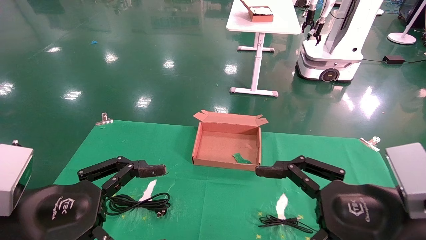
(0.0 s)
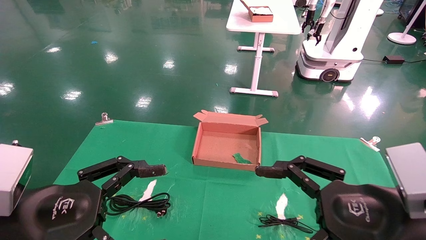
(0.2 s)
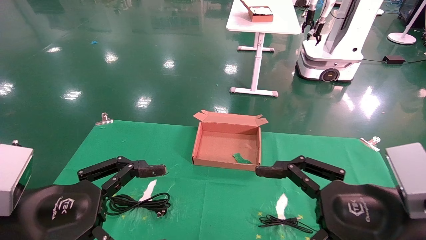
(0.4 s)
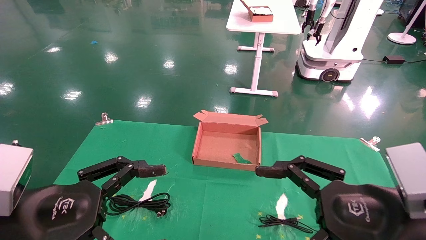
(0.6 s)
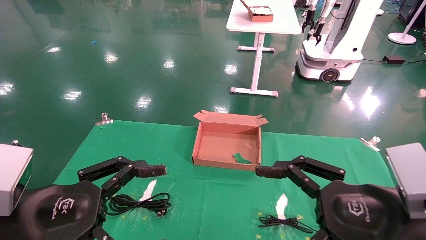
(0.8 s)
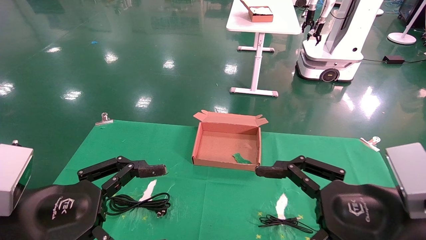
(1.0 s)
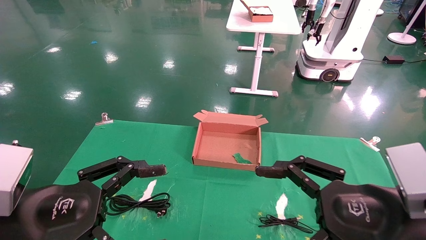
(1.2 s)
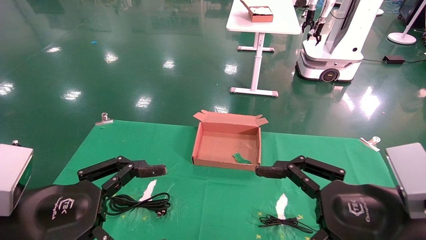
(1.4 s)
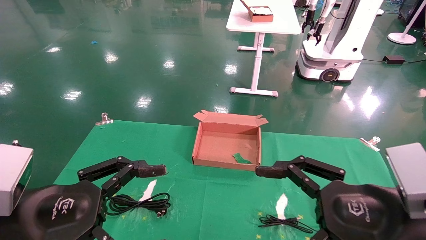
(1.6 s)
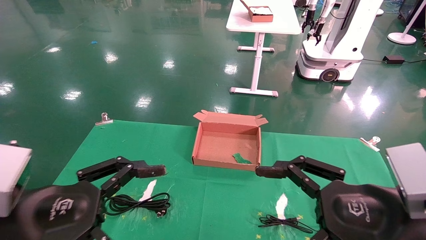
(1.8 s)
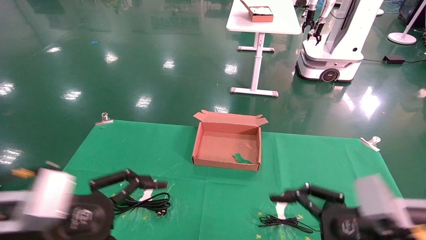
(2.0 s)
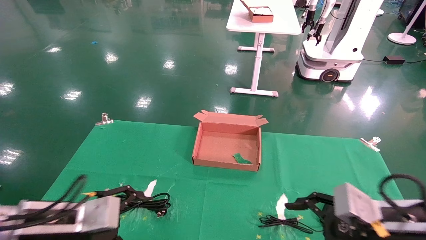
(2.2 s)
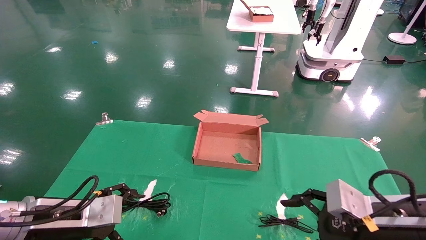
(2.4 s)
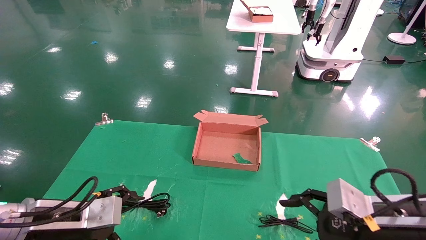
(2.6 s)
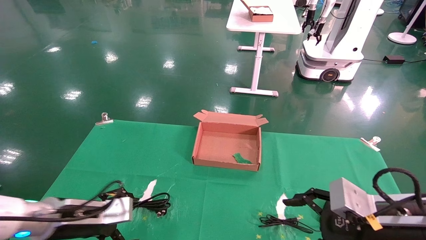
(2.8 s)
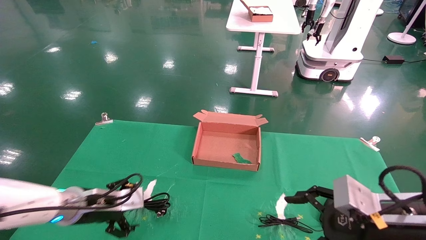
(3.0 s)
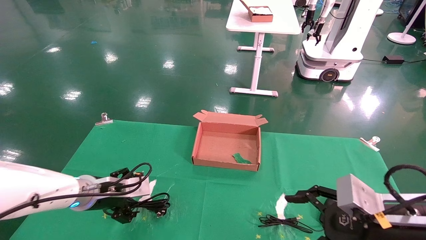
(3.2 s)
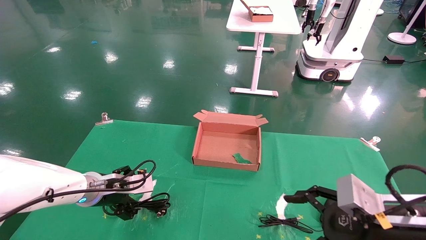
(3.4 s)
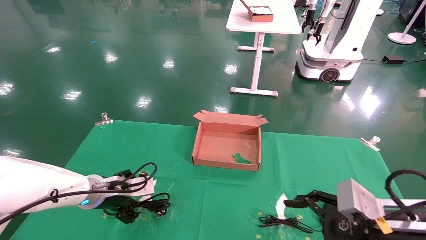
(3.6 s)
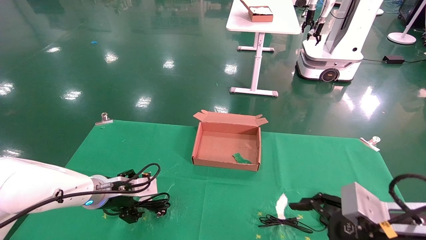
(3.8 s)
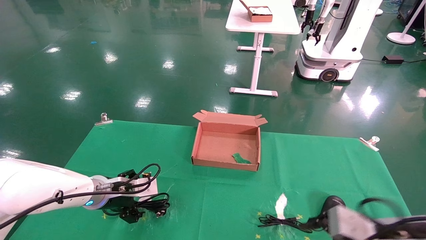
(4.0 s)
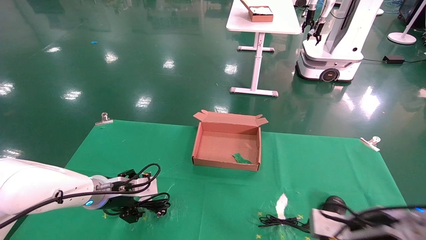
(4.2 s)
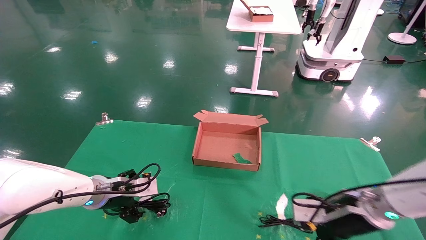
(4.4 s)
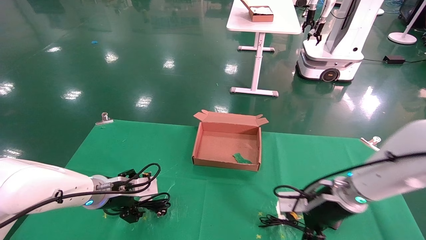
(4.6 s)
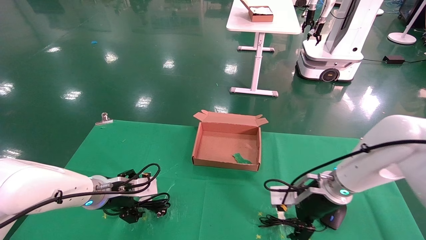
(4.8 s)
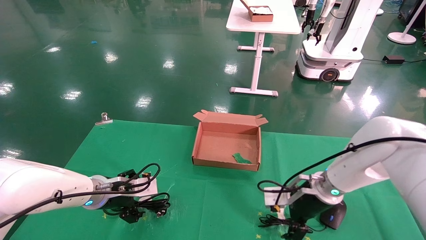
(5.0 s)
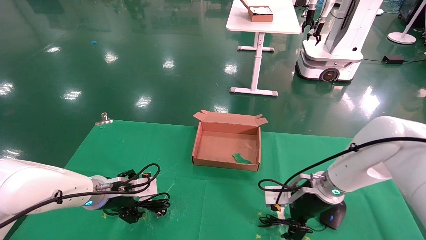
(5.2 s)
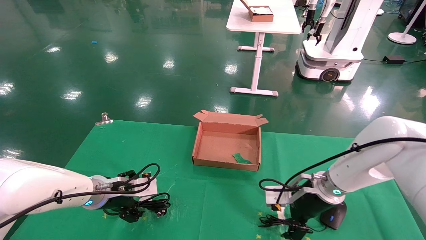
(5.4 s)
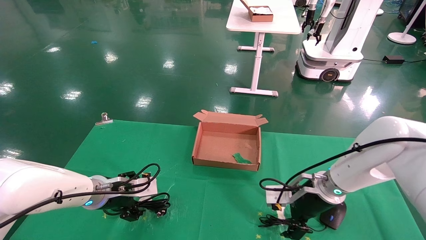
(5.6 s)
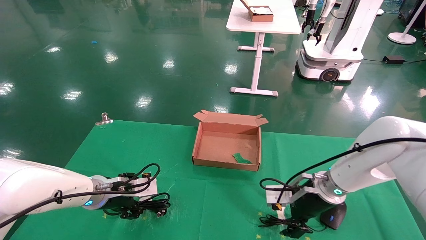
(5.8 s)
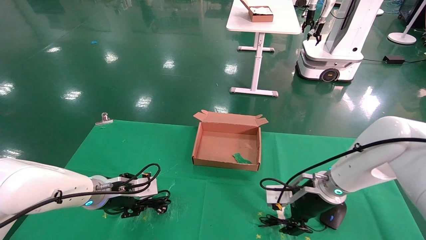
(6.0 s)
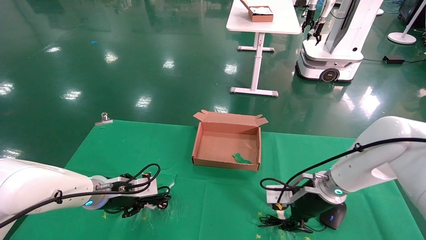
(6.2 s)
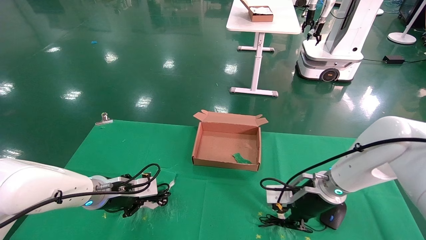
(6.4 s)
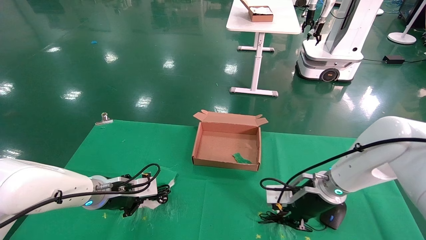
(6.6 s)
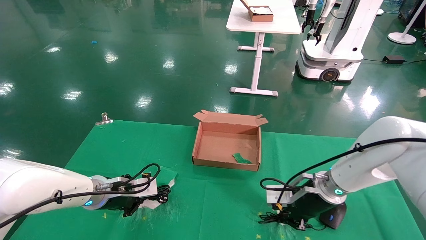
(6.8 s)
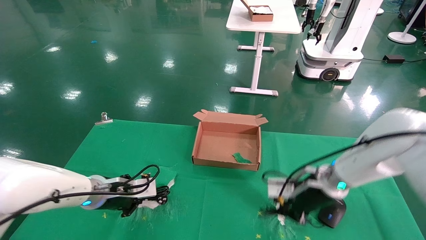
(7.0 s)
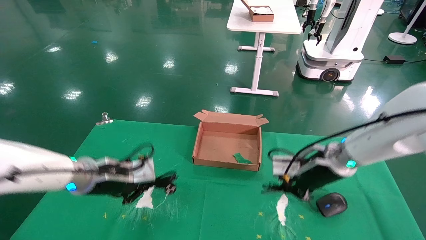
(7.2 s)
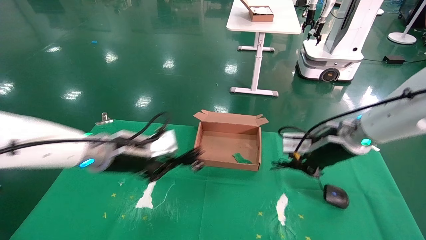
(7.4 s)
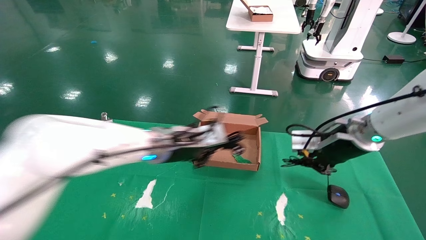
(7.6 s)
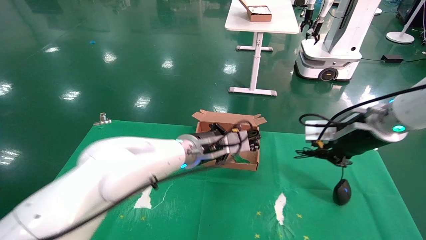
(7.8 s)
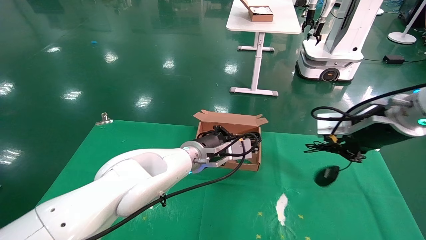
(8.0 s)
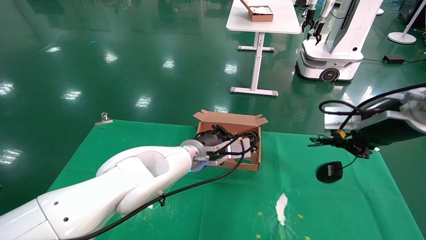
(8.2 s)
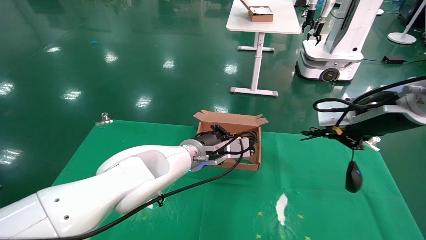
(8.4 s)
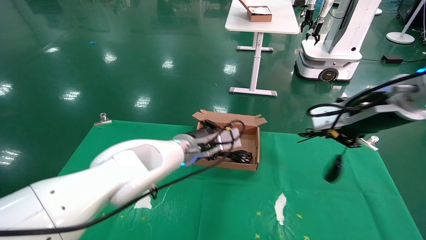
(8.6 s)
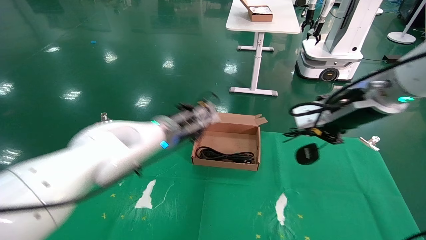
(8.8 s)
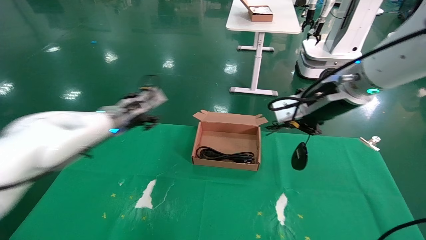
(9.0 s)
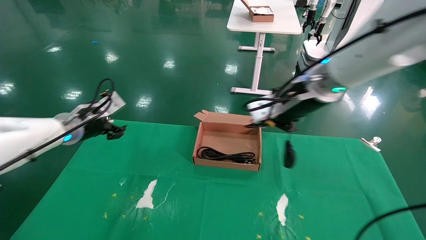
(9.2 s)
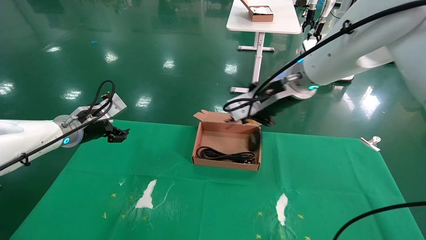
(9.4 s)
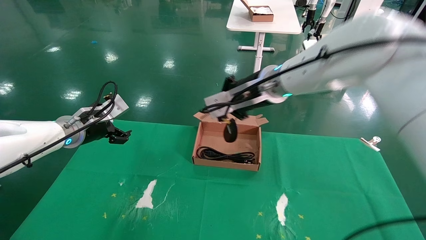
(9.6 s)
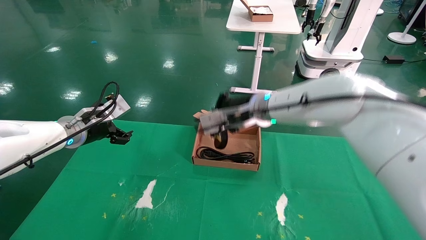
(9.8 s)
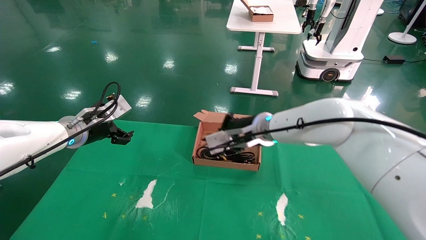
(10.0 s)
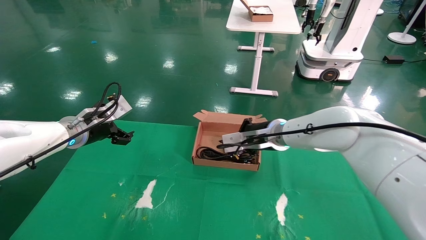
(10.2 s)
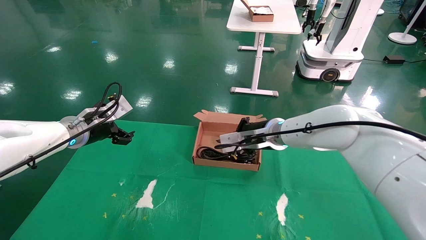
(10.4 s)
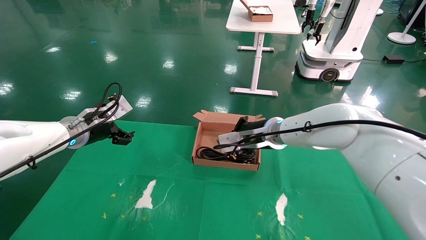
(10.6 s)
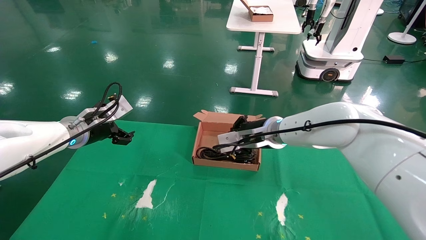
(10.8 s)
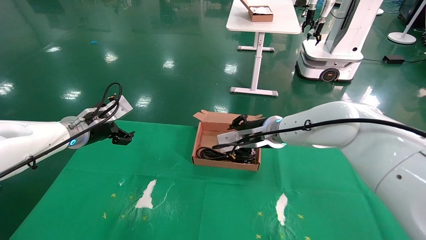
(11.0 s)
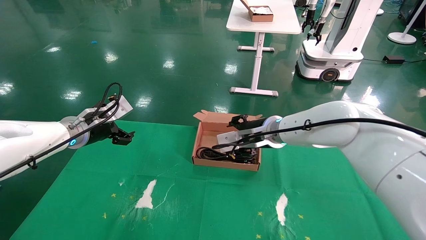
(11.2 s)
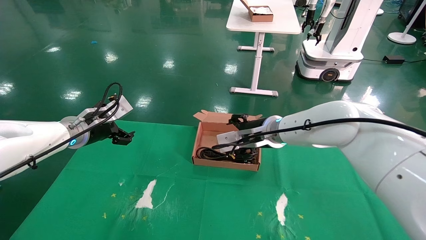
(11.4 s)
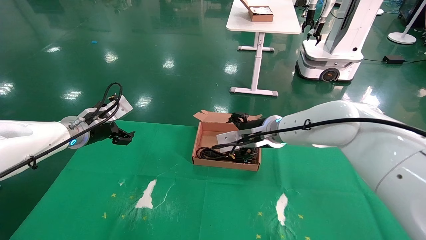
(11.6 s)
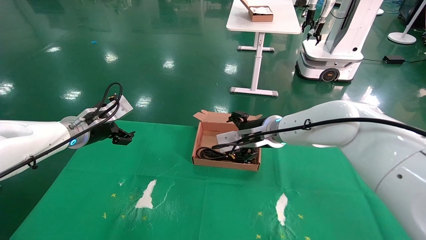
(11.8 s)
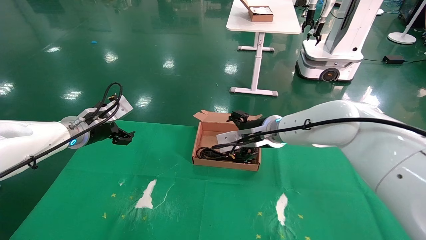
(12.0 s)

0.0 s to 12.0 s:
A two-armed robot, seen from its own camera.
Step, 3.0 to 7.0 s: Grab and lift both the mouse and power cord from the accessory packaging area at the same time.
Step, 7.2 to 11.4 s: Place the mouse and power cord into the box.
0.0 to 1.6 s: The two grippers keep their place.
1.6 to 3.0 s: The left gripper heads forward and downward, covering about 20 cm. Meanwhile the right gripper shifts by about 5 cm.
3.0 to 4.4 s: The left gripper shifts by approximately 5 cm. Meanwhile the right gripper heads forward, covering approximately 10 cm.
4.4 to 6.0 s: The left gripper closes its fingers. Meanwhile the right gripper shifts about 5 cm forward.
6.0 to 7.6 s: The right gripper travels upward by some 15 cm, and closes; the left gripper heads to the right and upward, covering approximately 20 cm, and closes.
7.6 to 9.0 s: The right gripper is displaced upward and to the left by roughly 10 cm. Meanwhile the left gripper moves to the left and forward, roughly 15 cm, and opens.
9.0 to 10.4 s: The left gripper moves to the left, about 5 cm, and opens up. Meanwhile the right gripper shifts approximately 20 cm downward, forward and to the left.
10.4 to 12.0 s: The right gripper opens.

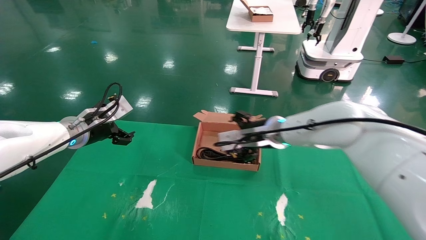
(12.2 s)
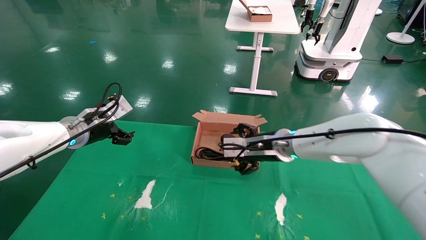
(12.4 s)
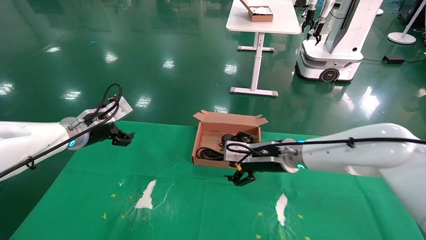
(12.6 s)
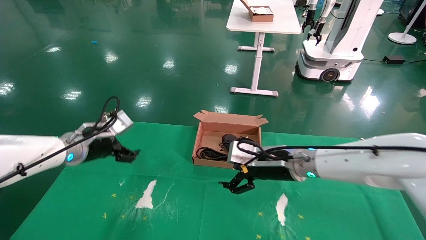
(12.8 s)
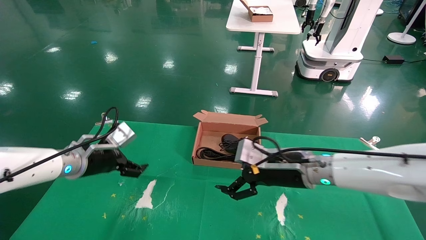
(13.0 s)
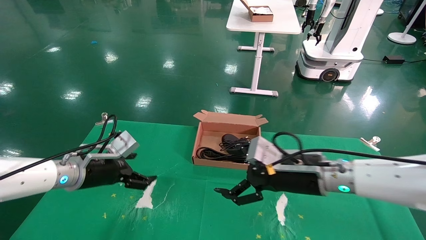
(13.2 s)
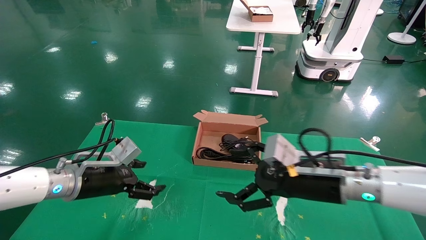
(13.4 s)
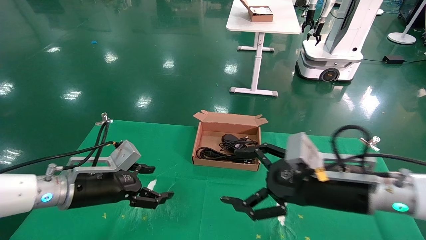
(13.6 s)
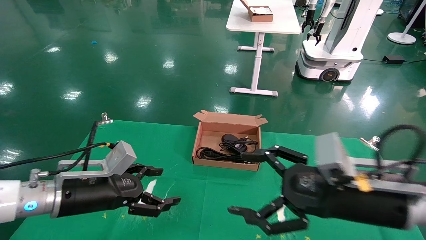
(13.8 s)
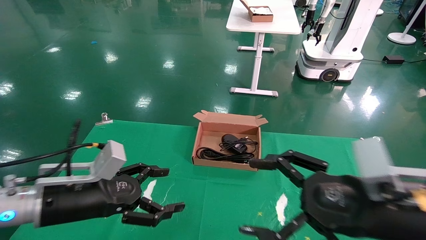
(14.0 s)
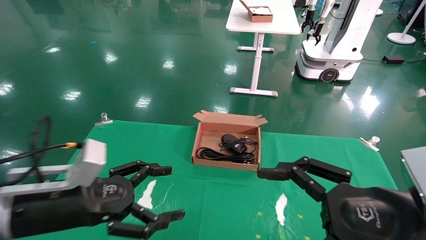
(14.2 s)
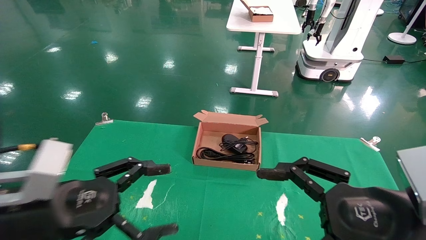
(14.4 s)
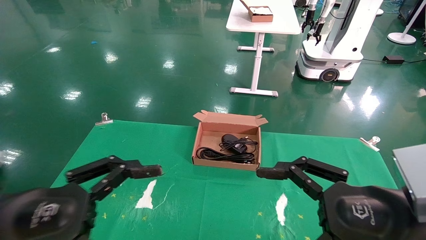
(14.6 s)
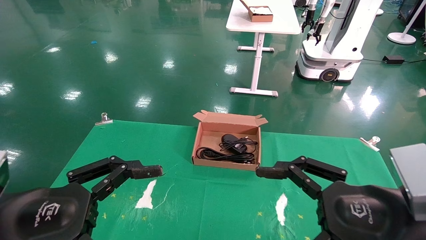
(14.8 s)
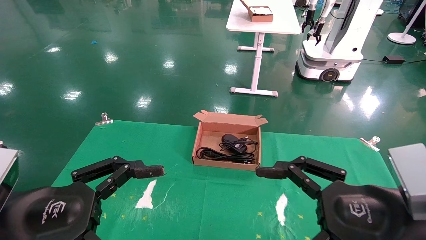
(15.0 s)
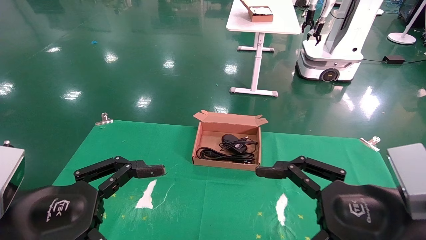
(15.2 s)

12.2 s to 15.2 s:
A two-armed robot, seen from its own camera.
12.2 to 13.8 s: The left gripper shifts some 15 cm backward and downward. Meanwhile the right gripper is displaced backward and to the right by some 25 cm.
13.8 to 15.2 s: The left gripper is displaced backward by about 15 cm; the right gripper goes some 5 cm backward.

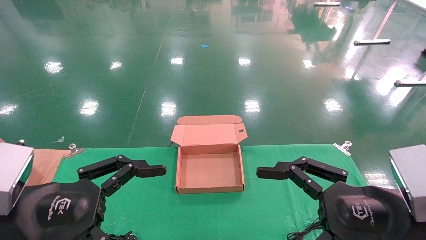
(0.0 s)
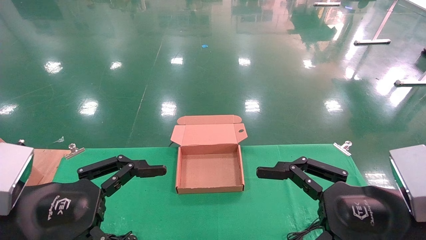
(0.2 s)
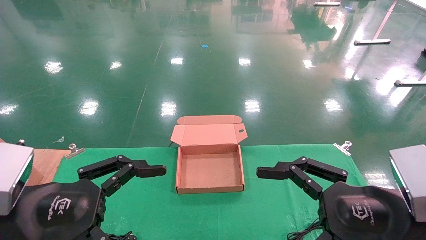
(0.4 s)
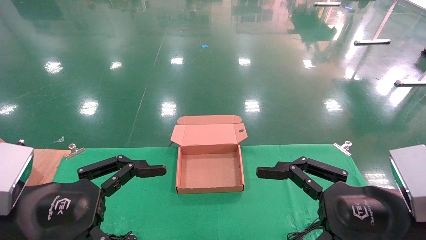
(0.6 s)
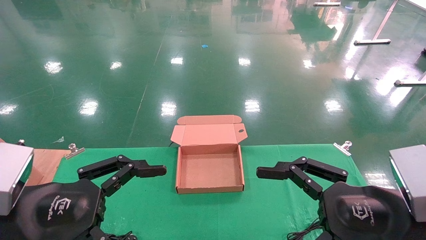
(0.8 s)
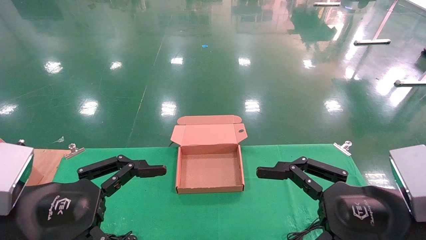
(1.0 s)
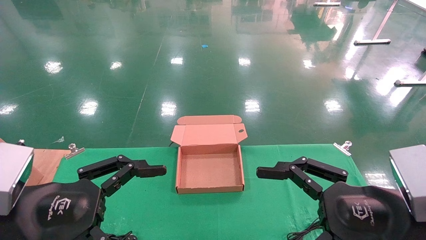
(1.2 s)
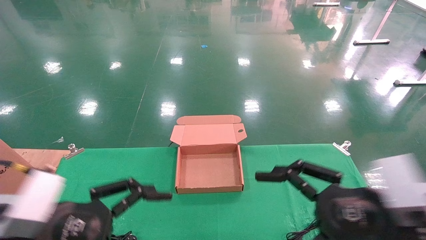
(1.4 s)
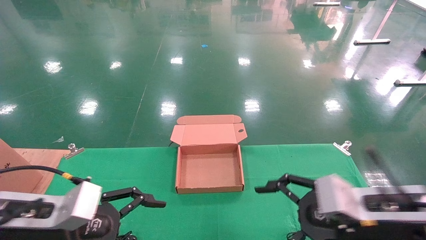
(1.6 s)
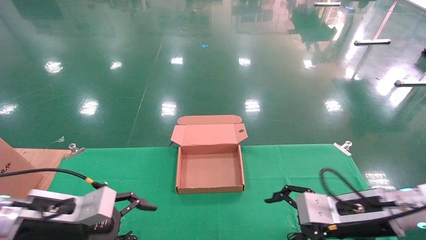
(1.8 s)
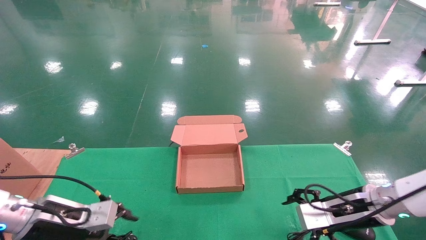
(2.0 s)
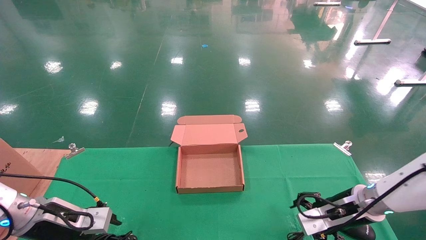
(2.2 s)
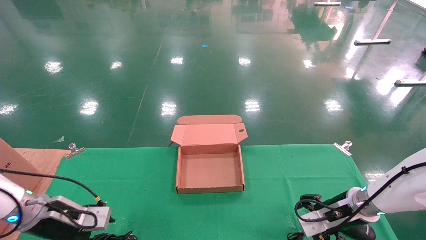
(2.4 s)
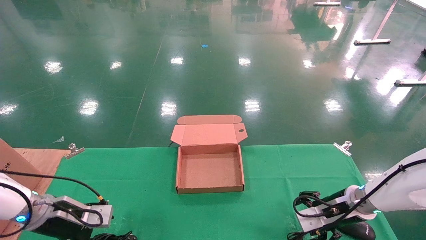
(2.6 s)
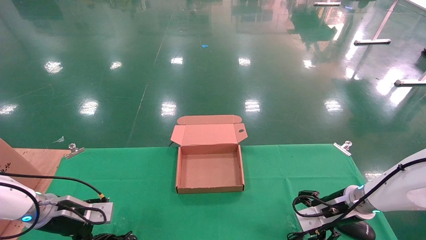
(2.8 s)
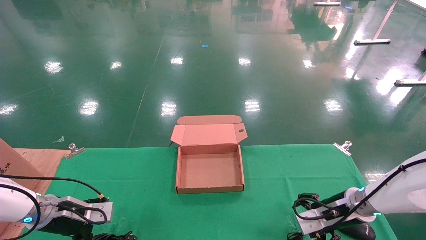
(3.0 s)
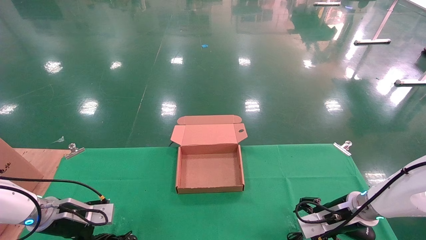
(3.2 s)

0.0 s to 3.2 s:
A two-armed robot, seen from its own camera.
0.0 to 1.6 s: Both grippers move forward and downward, approximately 10 cm.
1.6 to 3.2 s: The right gripper moves forward and downward, about 15 cm. The left gripper is displaced forward, downward and to the left by some 20 cm.
